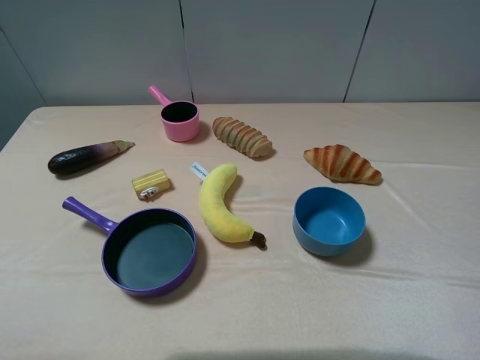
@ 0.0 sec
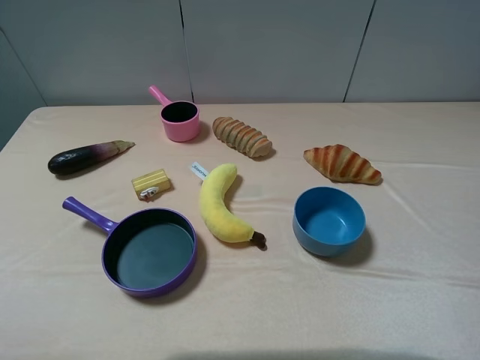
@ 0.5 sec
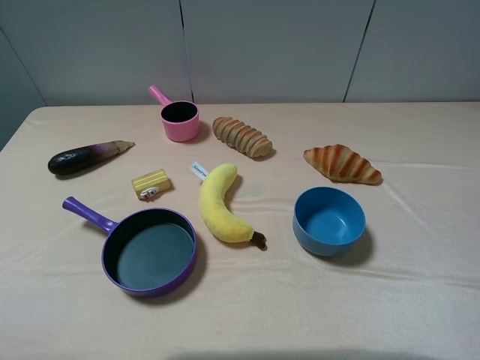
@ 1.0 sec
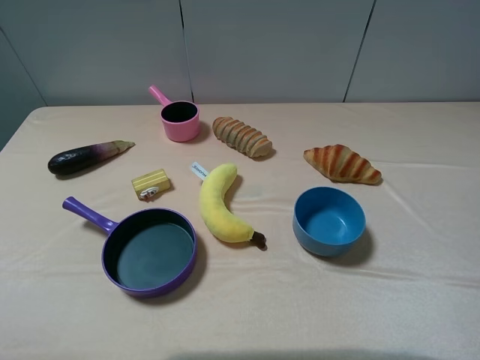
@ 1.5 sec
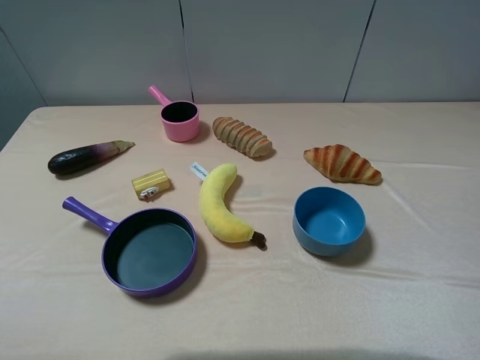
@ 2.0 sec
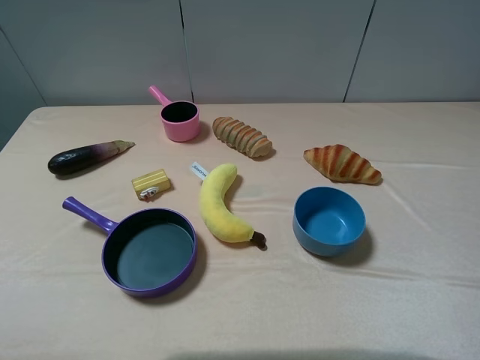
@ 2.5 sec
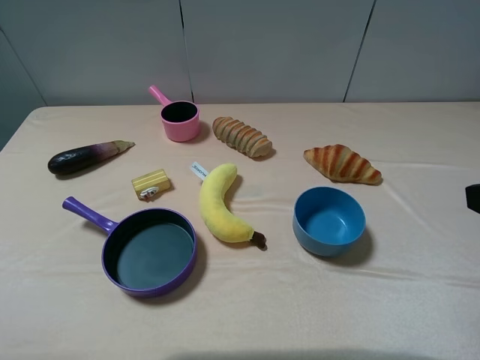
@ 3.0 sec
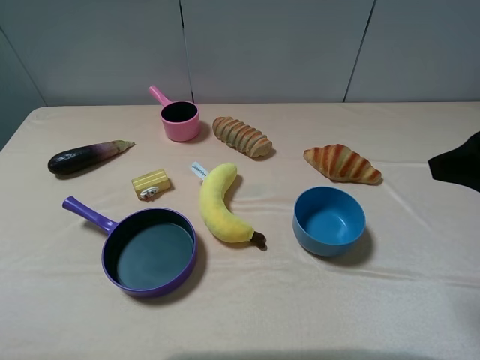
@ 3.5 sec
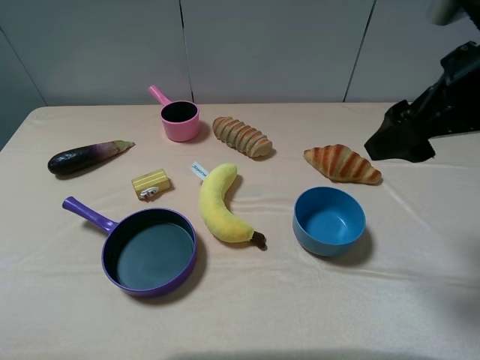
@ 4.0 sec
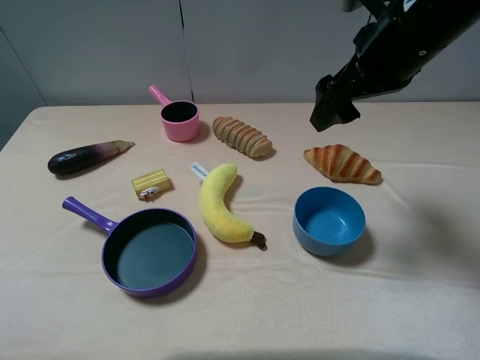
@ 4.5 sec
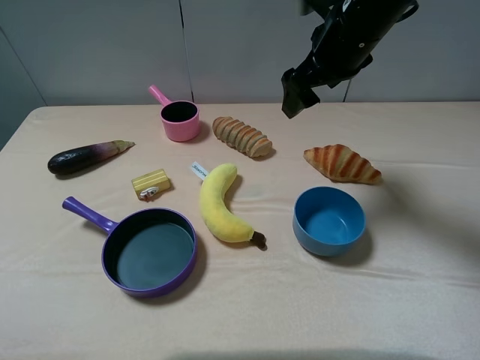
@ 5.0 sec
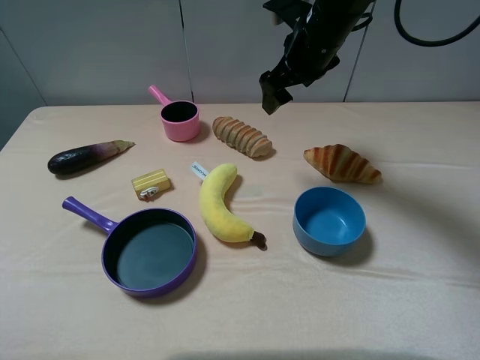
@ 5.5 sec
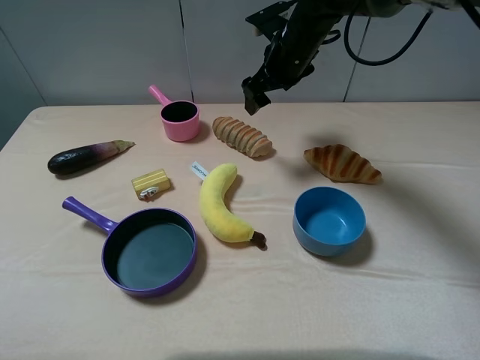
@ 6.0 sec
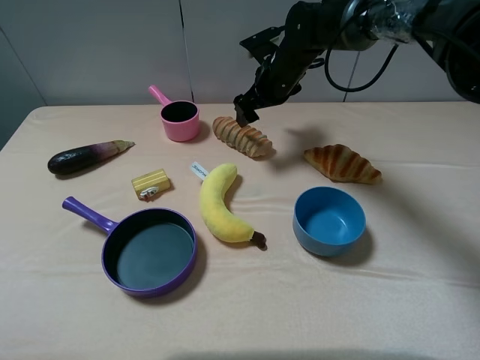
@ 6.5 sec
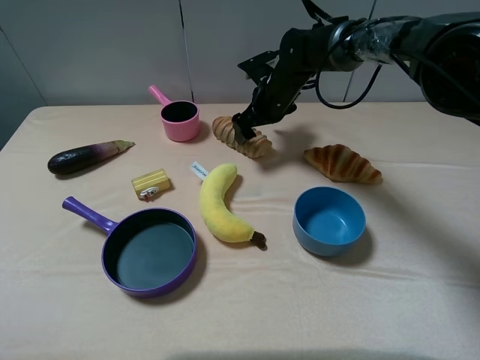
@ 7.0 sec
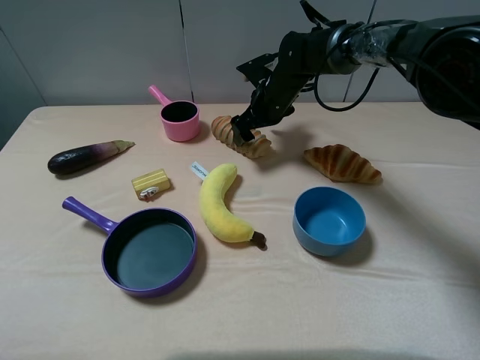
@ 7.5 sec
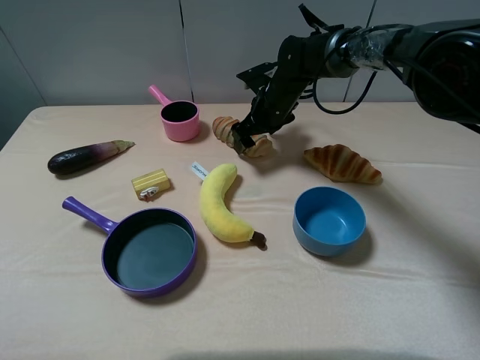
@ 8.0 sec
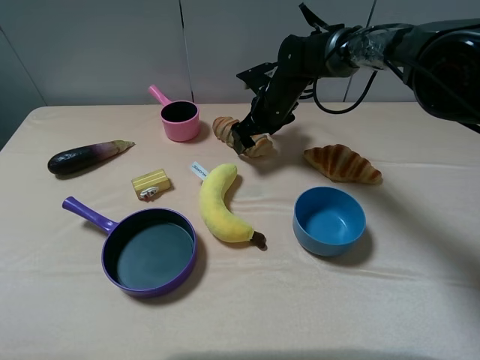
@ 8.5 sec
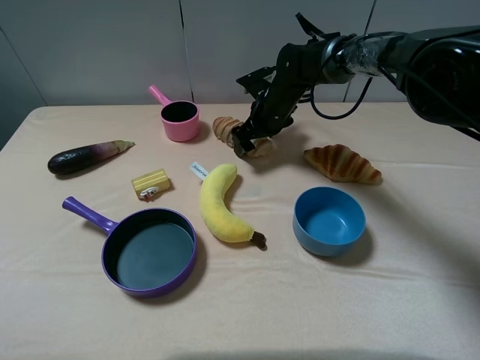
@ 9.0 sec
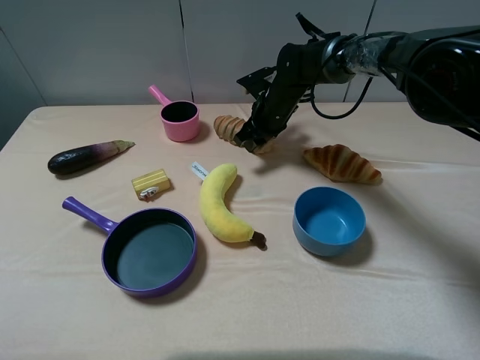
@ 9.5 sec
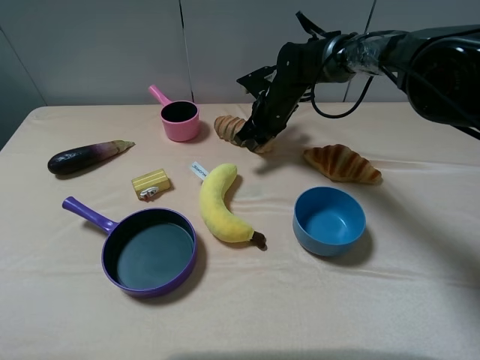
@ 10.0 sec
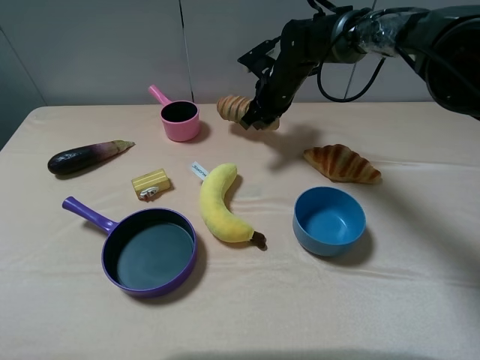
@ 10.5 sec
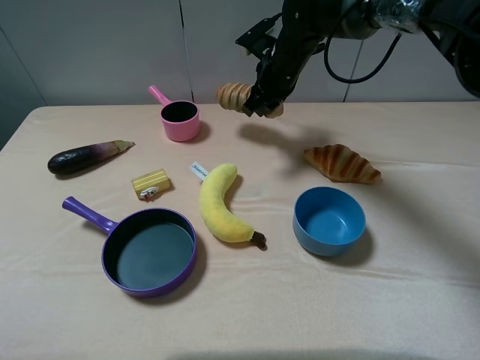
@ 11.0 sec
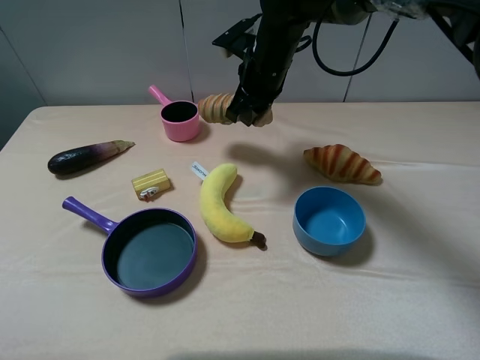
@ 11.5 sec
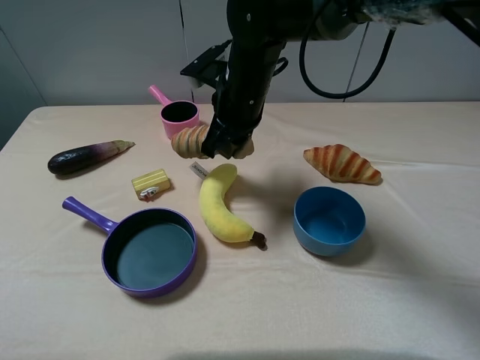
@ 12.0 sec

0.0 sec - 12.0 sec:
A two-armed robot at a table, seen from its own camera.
Task of the whole recording: pick up an item with a gripper and place it in a random container on the table.
Step, 0.0 sec - 9.5 sec: Grasp the long bread with the right gripper.
0.0 sec - 2.0 sec: Both grippers stay about where they are.
2.0 sec - 4.0 sec: The right gripper travels forward and to the left by about 25 cm.
4.0 sec - 6.0 sec: The right gripper shifts some 30 cm forward, to the left and downward.
6.0 sec - 8.0 sec: The right gripper goes roughly 10 cm downward.
8.0 sec - 10.0 sec: The right gripper closes.
10.0 sec - 12.0 sec: The right gripper heads backward, upward and to the left, covering roughly 15 cm.

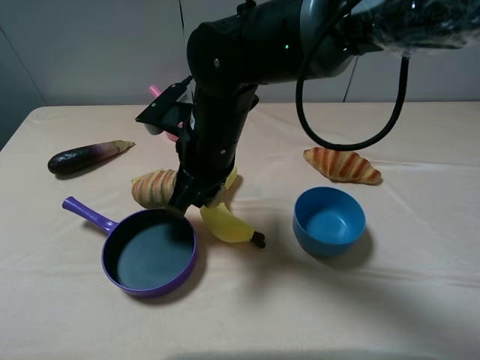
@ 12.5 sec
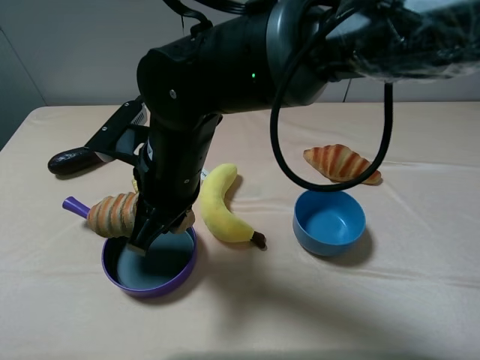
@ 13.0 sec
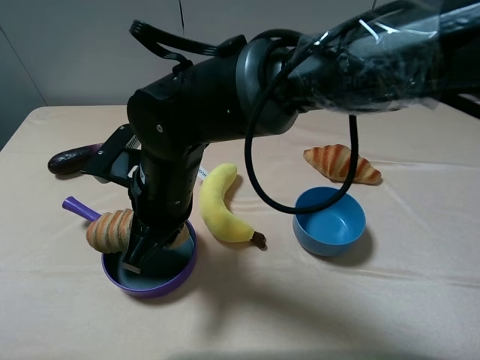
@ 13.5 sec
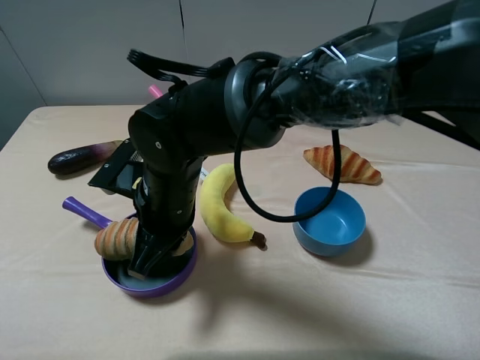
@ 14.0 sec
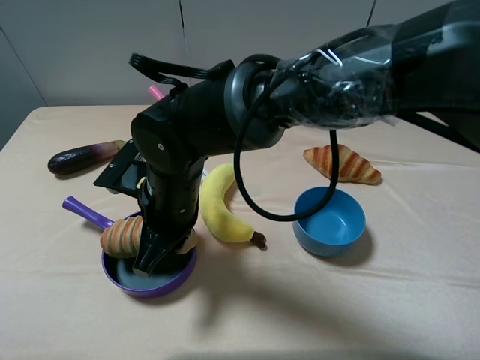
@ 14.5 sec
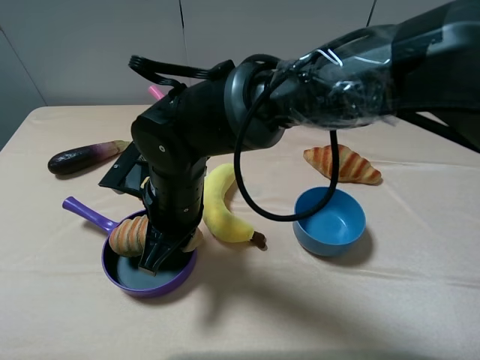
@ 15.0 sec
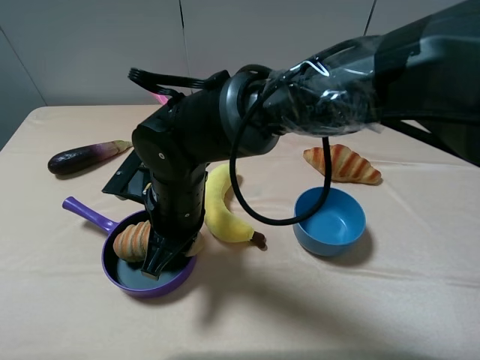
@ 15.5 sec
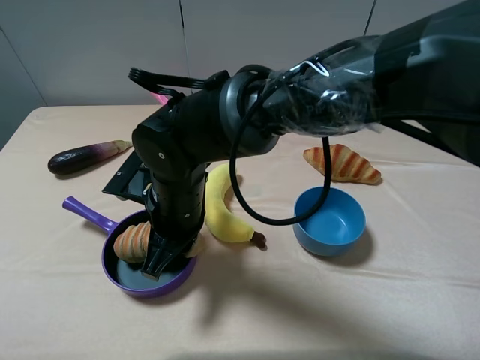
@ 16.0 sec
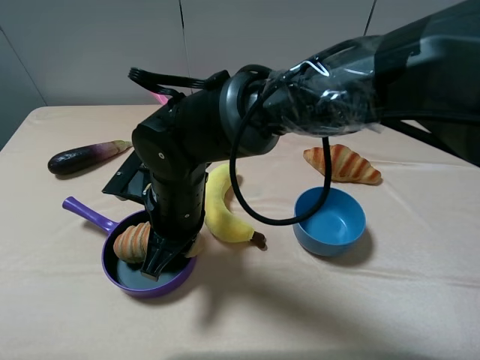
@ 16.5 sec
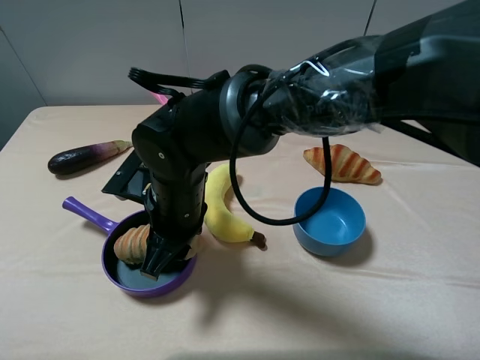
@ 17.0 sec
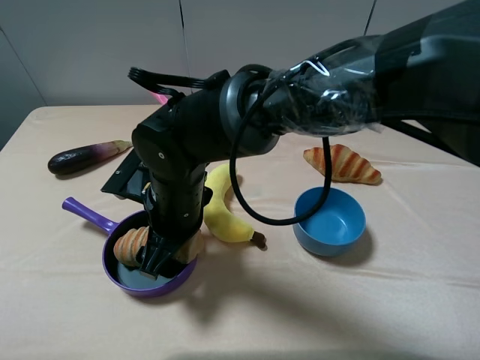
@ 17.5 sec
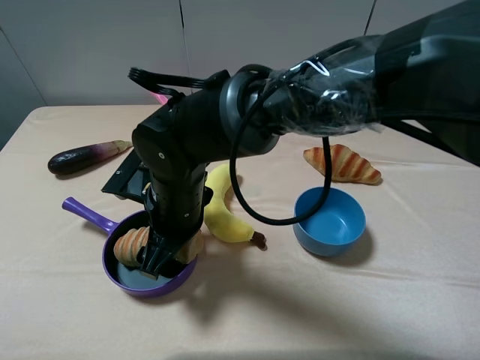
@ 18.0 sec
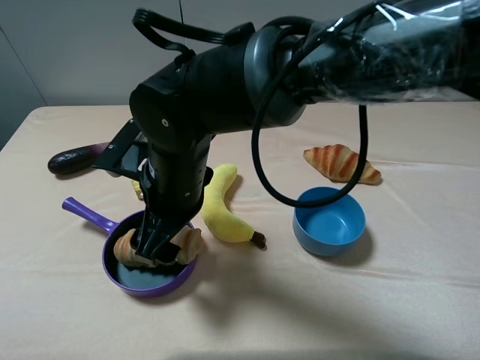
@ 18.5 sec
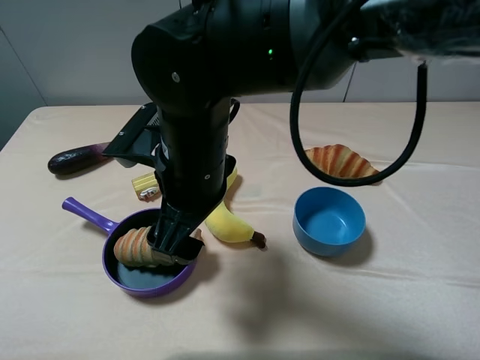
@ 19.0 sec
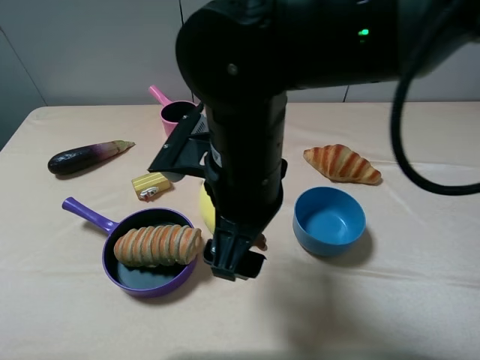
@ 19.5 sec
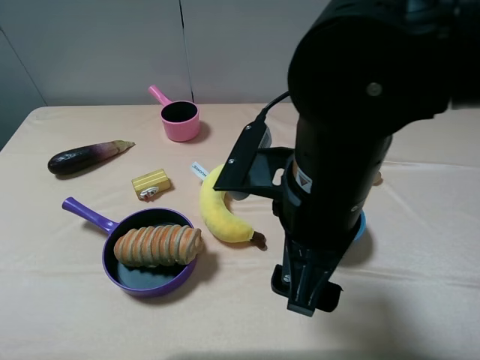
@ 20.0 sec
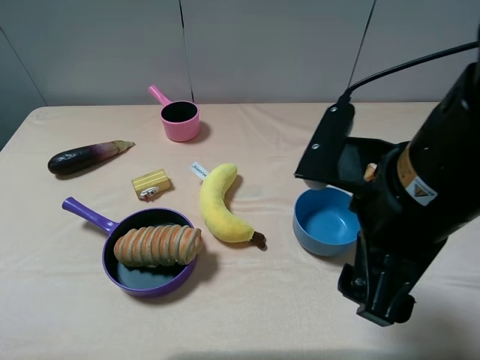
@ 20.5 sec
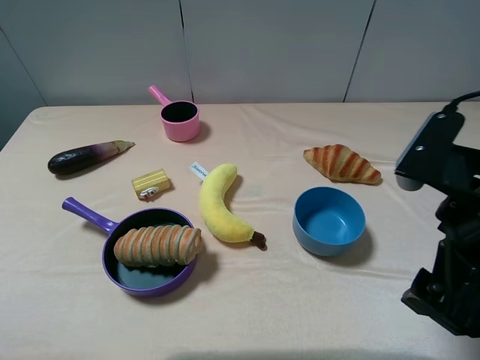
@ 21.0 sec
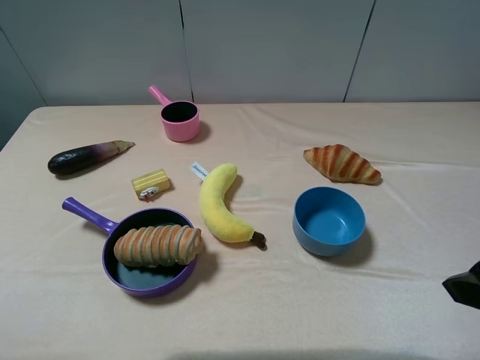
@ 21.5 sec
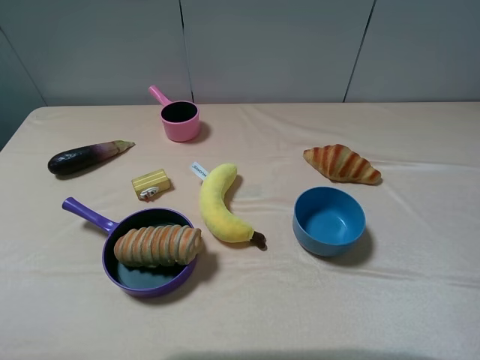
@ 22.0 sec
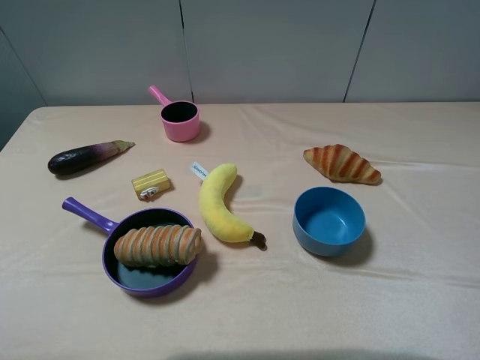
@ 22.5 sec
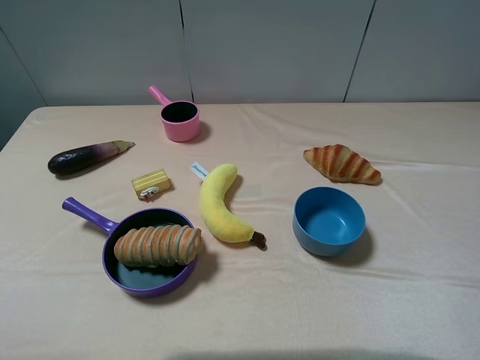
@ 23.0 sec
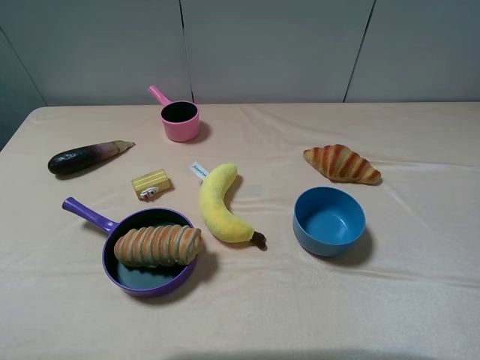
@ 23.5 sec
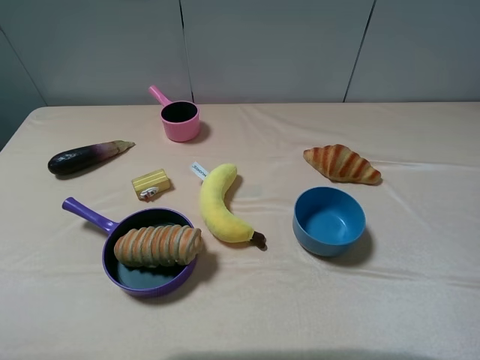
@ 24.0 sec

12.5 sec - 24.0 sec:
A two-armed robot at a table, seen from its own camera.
Task of the whole recording: pick up an item with a gripper and place it in a random container on the table.
Step, 12.5 sec - 17.5 sec: Place the long bread into the purple pot with the right gripper.
12.5 sec - 14.5 sec: The right gripper changes place by approximately 10 cm.
14.5 sec - 16.5 sec: Neither gripper changes place.
16.5 sec - 18.5 sec: The right gripper opens its fingers.
18.5 sec - 20.0 sec: The right gripper heads to the right, upward and backward, covering roughly 15 cm.
20.0 sec - 22.0 sec: The right gripper heads to the right, covering some 20 cm.
